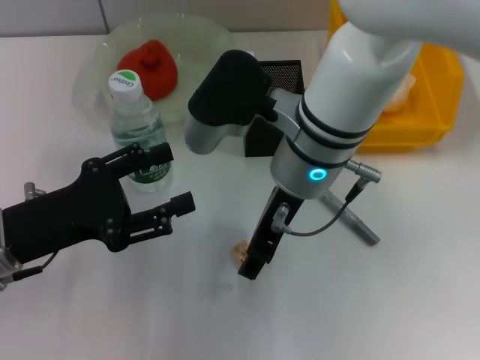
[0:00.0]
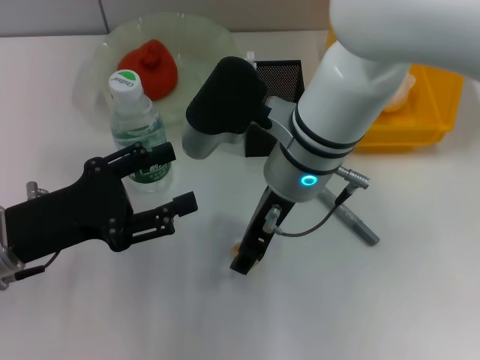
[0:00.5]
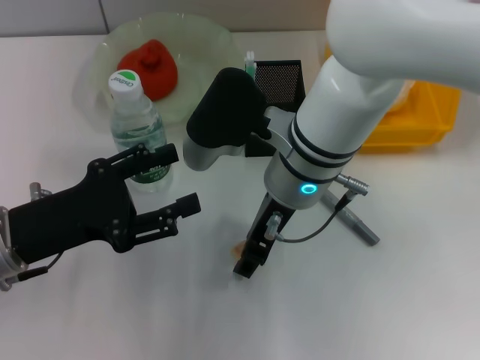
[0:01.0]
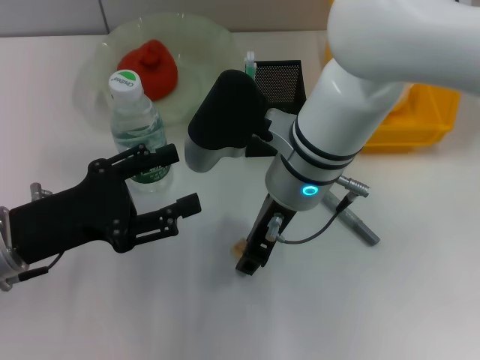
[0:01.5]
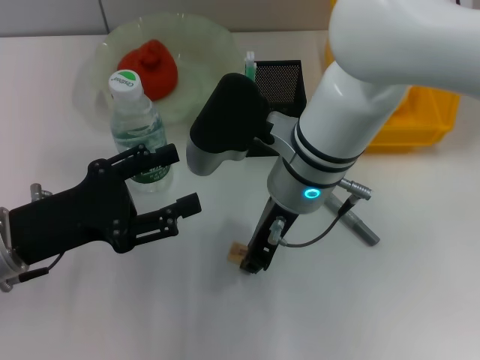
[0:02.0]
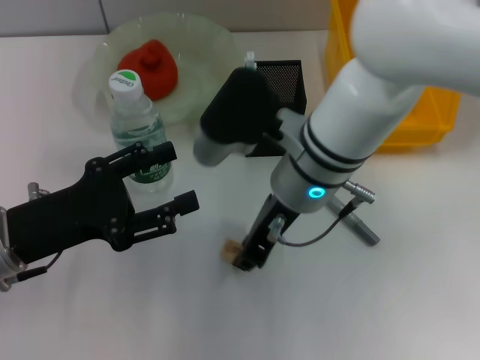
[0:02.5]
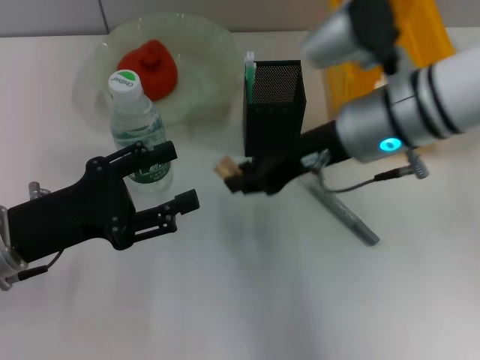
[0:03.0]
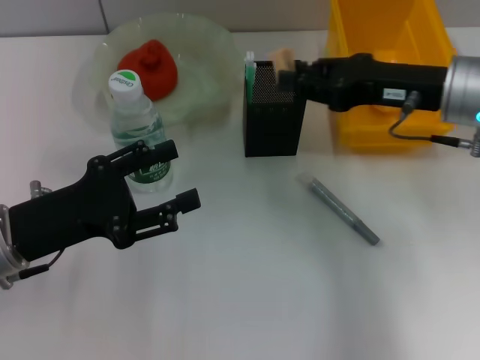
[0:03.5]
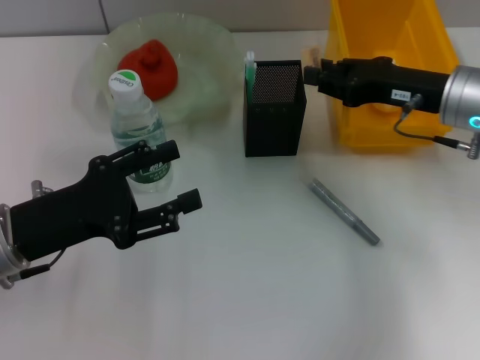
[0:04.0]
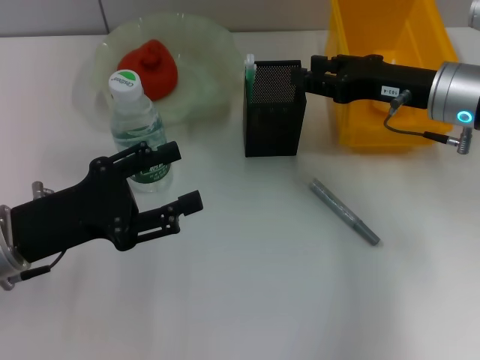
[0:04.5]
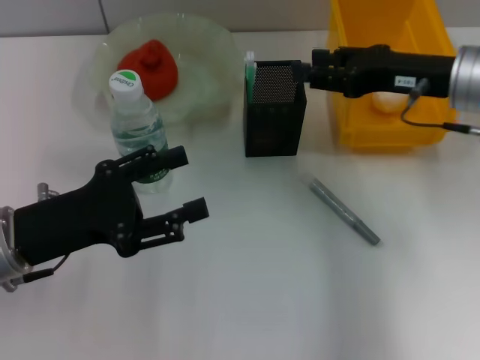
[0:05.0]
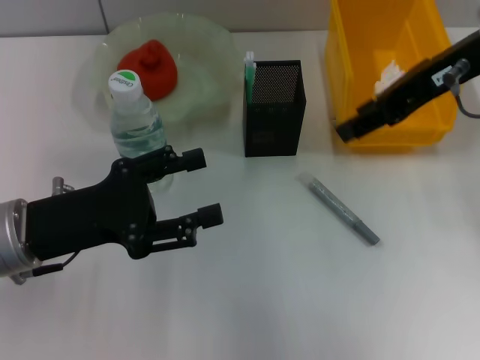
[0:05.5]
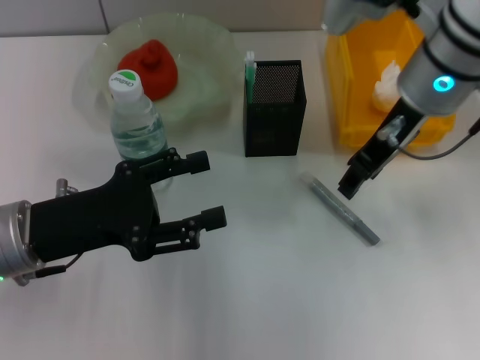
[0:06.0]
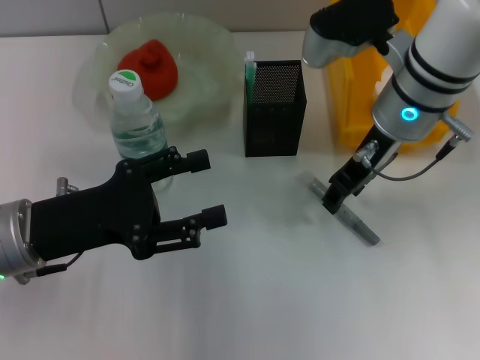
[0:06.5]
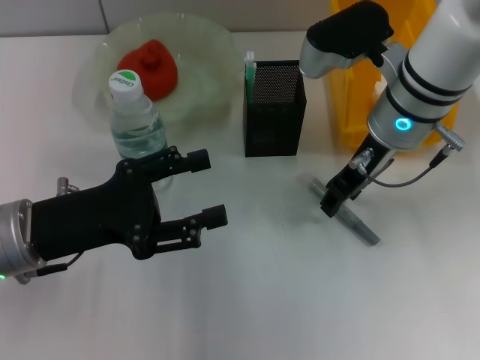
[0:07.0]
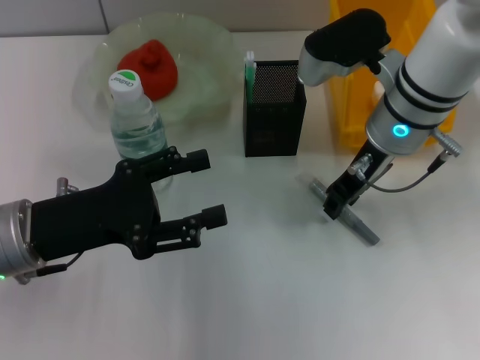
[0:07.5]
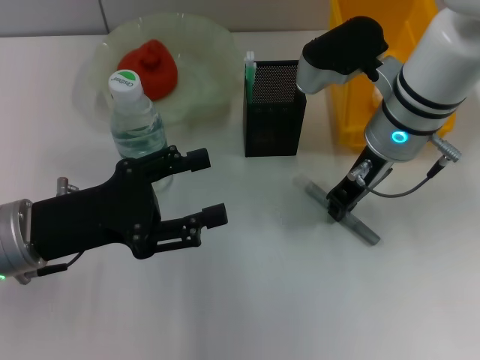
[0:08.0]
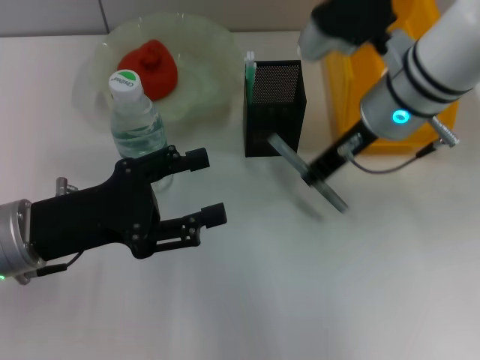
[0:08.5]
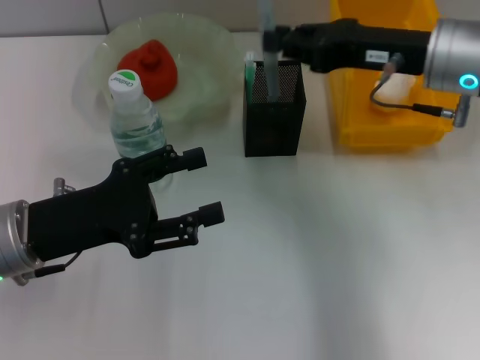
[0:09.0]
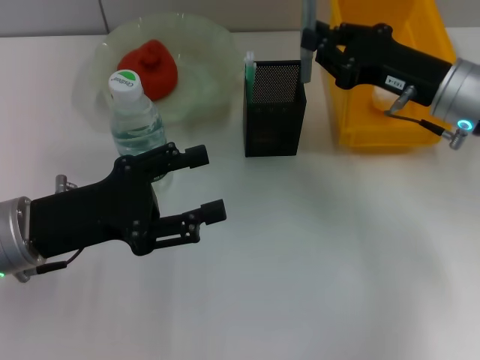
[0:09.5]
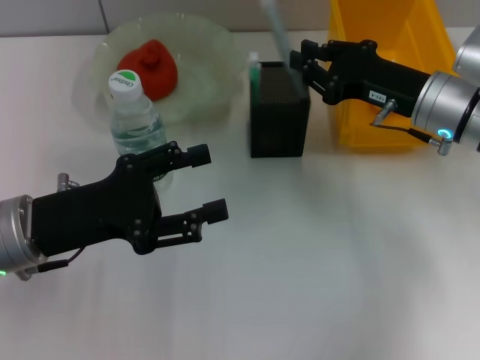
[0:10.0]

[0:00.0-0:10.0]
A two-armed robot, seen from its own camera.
Step, 0:00.0 to 0:02.0: Grab the eraser with the right hand.
Step, 0:02.5 to 0:04.0: Put the eraser into the pen holder with the right hand.
Step, 0:04.5 to 0:07.5: Grab the gray glue with the right hand.
0:00.0 to 0:02.0: The right gripper closes.
0:02.0 to 0:04.0: The right gripper travels to the right by roughly 20 cm.
0:04.0 to 0:06.0: The right gripper moves to the left and upward, approximately 10 cm, and opens.
0:06.0 to 0:08.0: The right gripper travels downward by some 5 cm.
0:08.0 to 0:10.0: The right gripper heads to the right, covering some 10 cm.

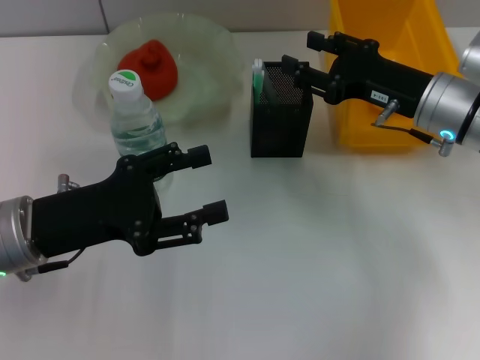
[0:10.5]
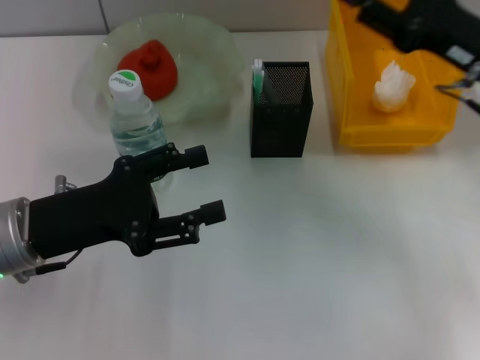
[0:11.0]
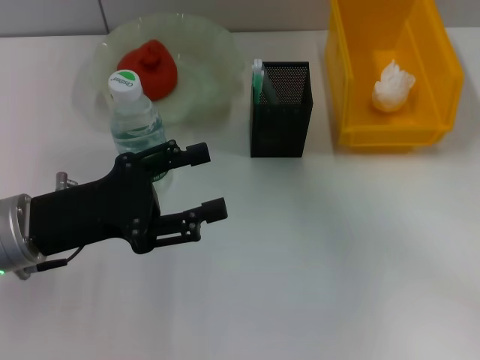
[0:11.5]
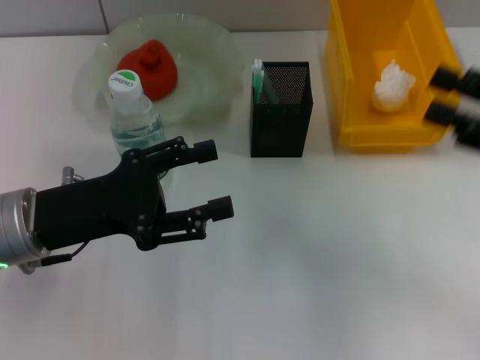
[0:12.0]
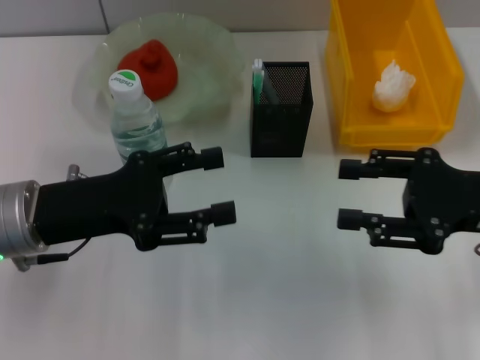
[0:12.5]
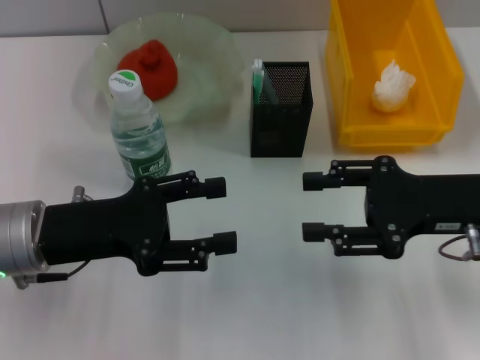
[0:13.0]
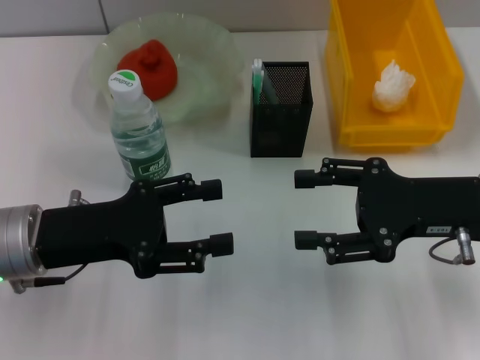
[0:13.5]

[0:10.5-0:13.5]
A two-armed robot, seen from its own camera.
0:10.5 to 0:12.0: The right gripper travels to the right and backward by roughly 15 cm.
0:12.0 to 0:13.5: The right gripper goes about 10 cm to the left.

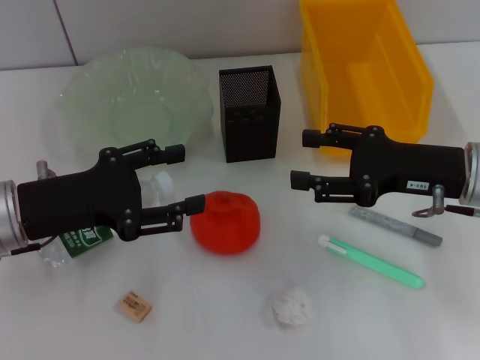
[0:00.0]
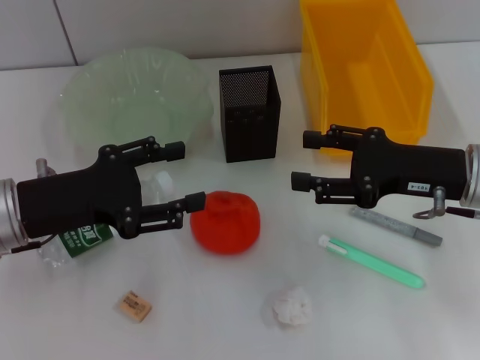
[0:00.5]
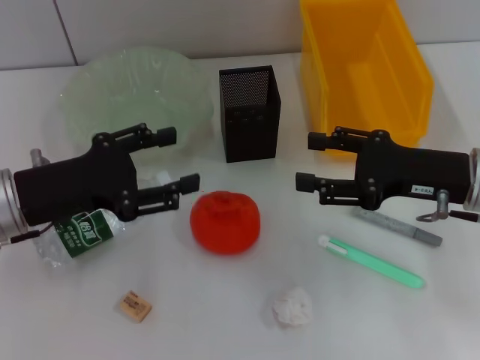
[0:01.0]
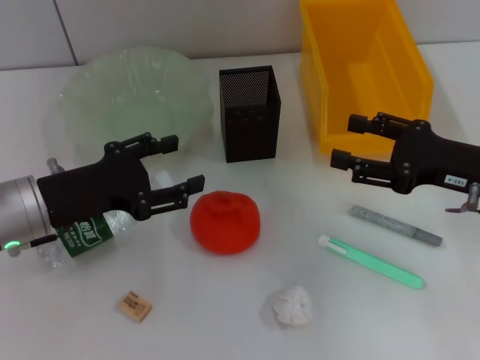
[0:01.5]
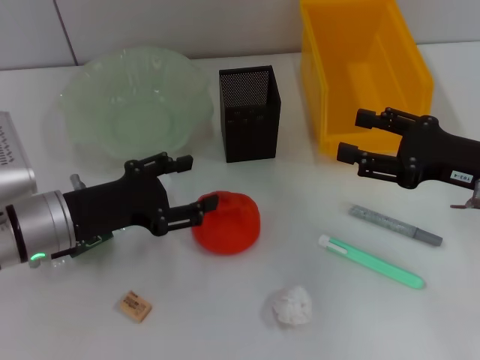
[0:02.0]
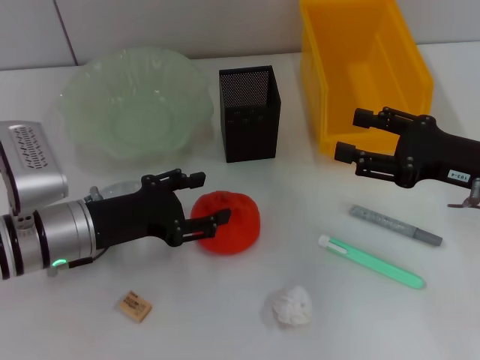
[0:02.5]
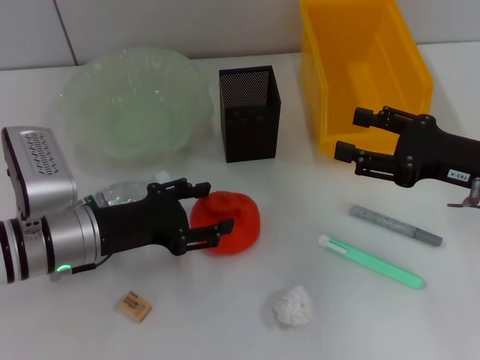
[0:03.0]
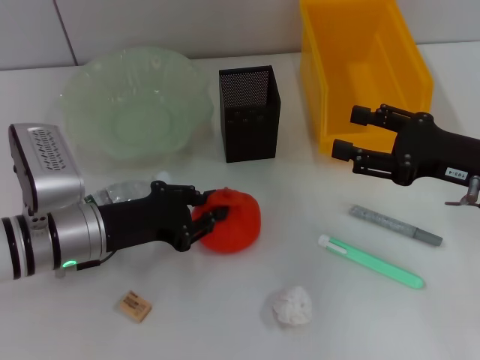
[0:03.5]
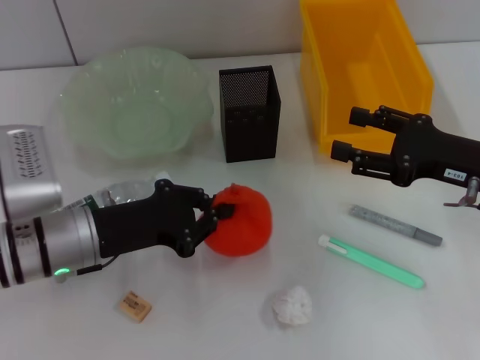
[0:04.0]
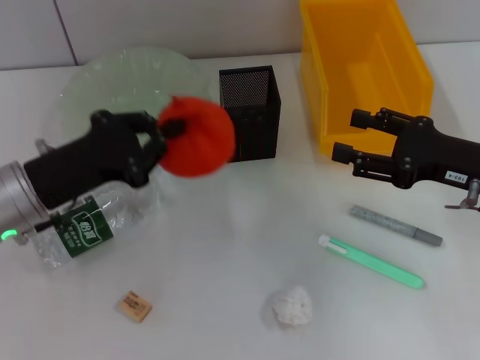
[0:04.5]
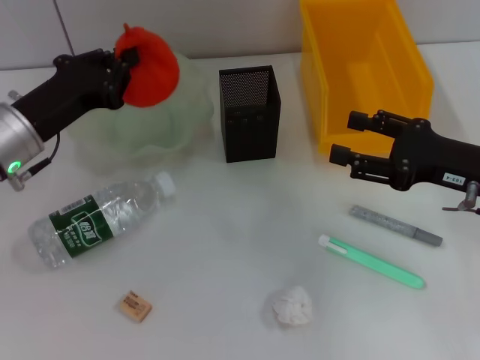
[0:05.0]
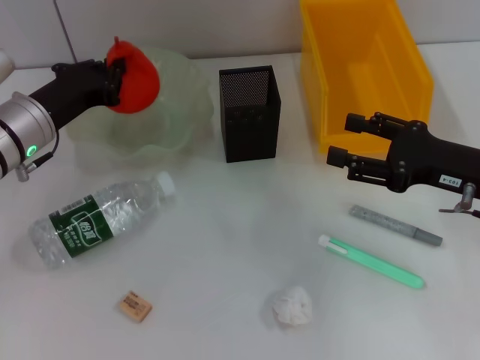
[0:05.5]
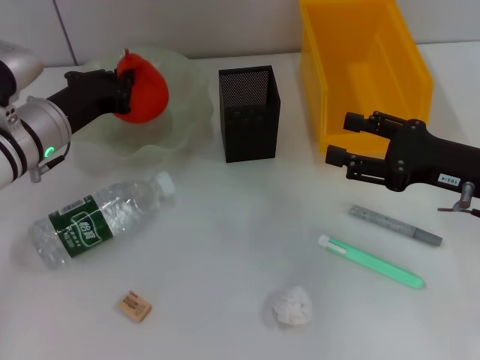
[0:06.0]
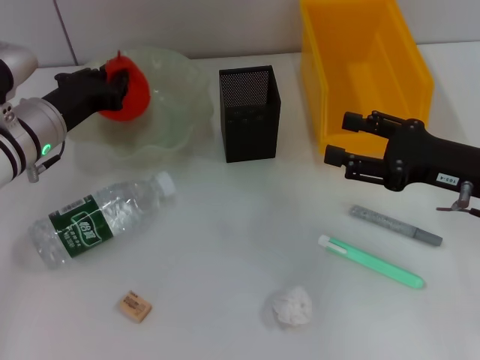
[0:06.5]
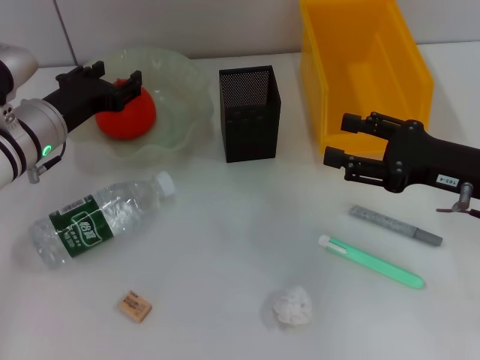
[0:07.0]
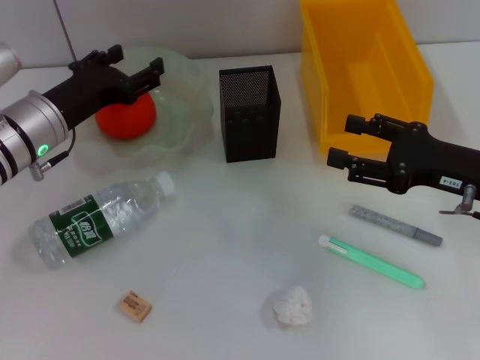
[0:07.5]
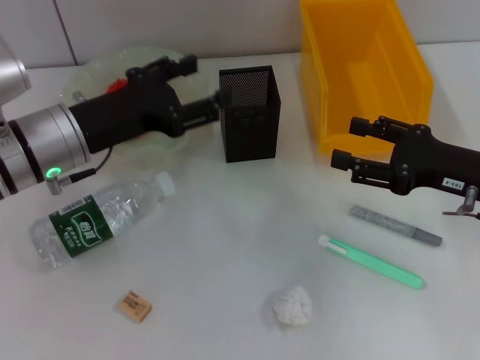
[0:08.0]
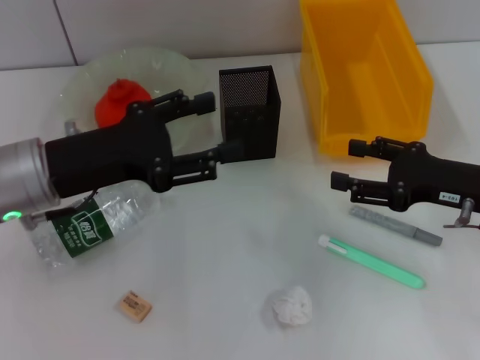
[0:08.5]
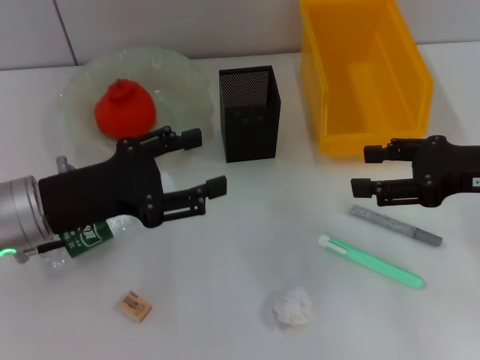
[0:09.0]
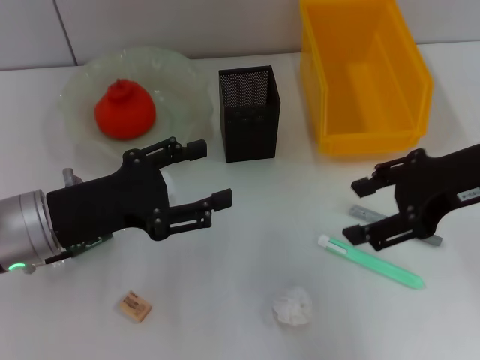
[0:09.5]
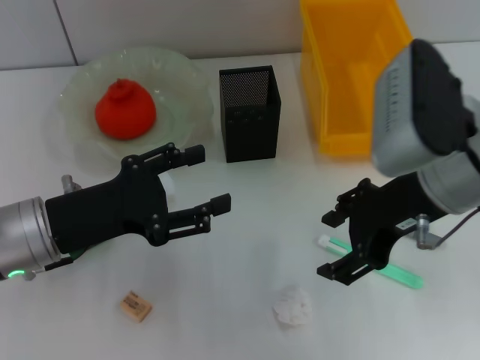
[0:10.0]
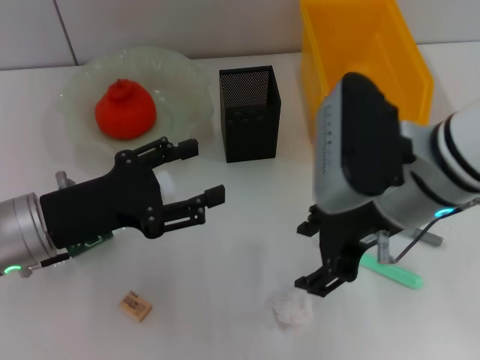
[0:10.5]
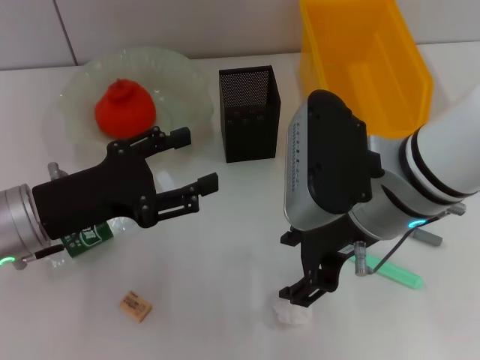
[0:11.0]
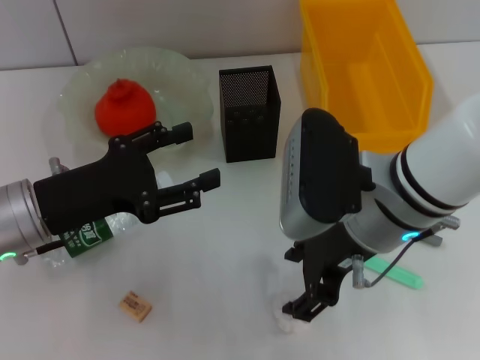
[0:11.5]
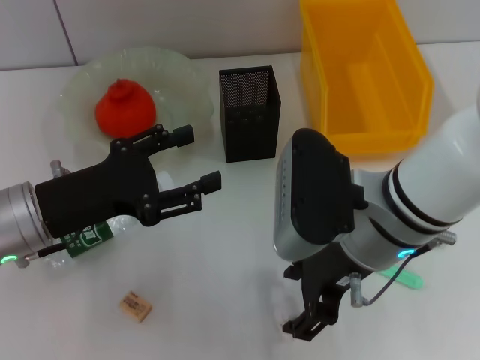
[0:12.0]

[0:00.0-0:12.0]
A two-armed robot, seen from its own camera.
Step, 0:00.0 to 0:03.5: Grab the orange with the left hand.
Step, 0:04.0 to 0:06.5: Place the orange into the fruit bowl with the left hand.
0:00.0 to 0:02.0: The left gripper shifts by some 5 cm.
0:02.0 to 0:04.0: The left gripper closes up.
0:04.0 to 0:06.0: The left gripper is displaced forward by about 10 cm.
0:06.0 to 0:08.0: The left gripper shifts roughly 5 cm backward, and opens its fingers.
0:08.0 to 0:10.0: The right gripper goes roughly 15 cm to the left and upward; the left gripper moves backward, approximately 5 cm.
0:10.0 to 0:12.0: The right gripper shifts roughly 5 cm to the left.
